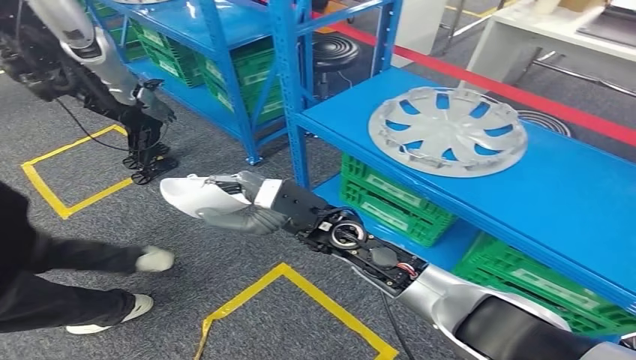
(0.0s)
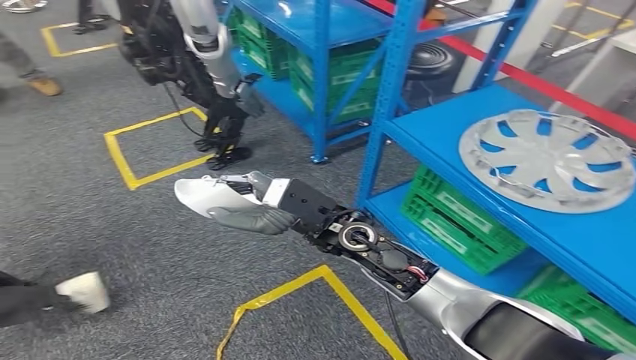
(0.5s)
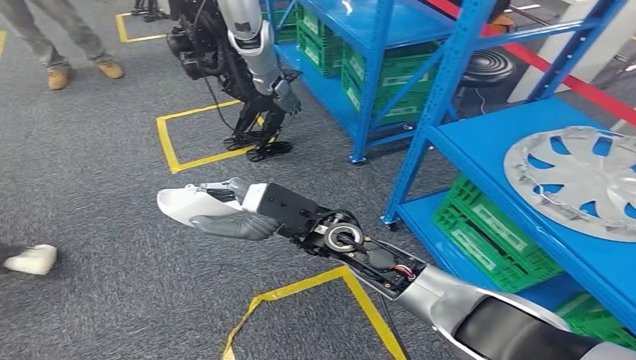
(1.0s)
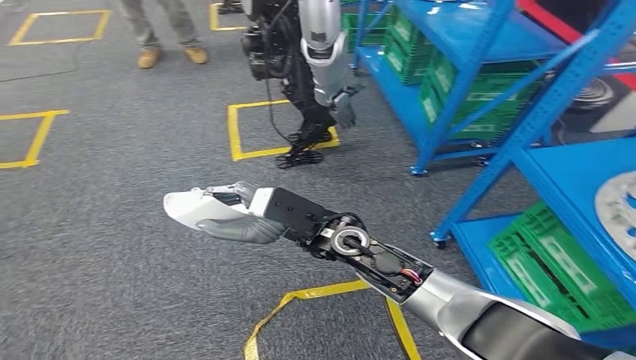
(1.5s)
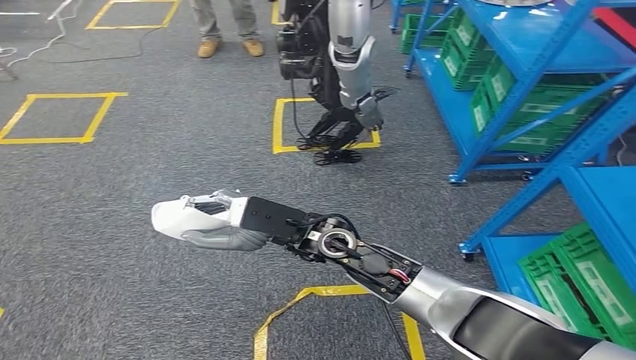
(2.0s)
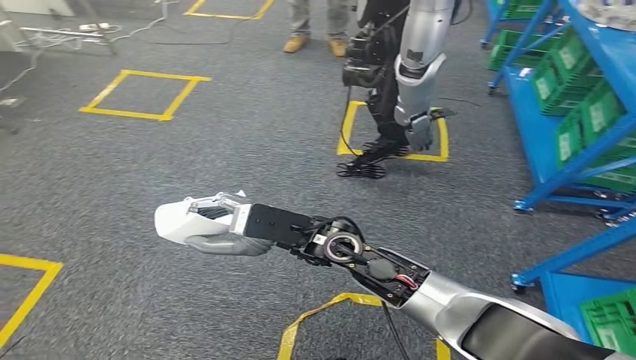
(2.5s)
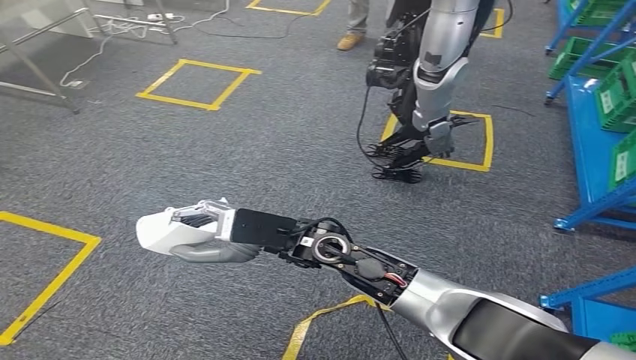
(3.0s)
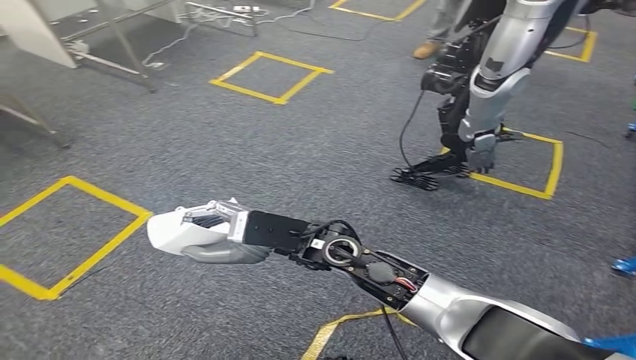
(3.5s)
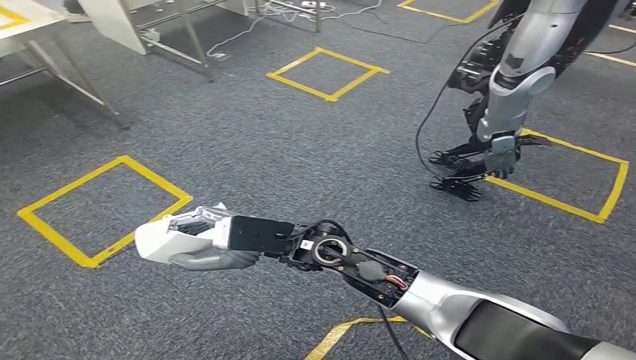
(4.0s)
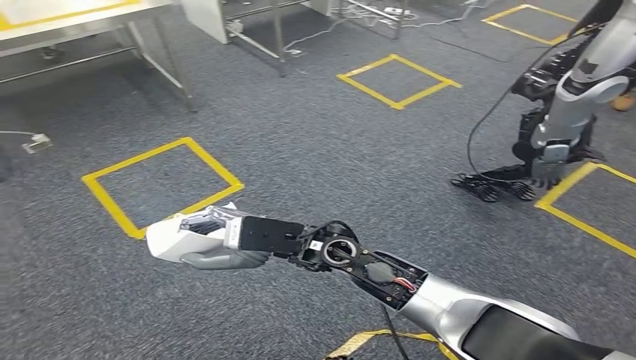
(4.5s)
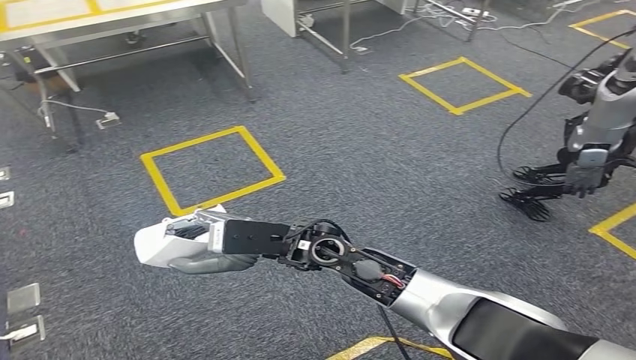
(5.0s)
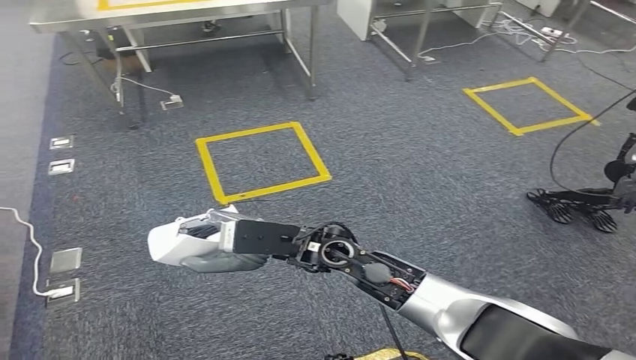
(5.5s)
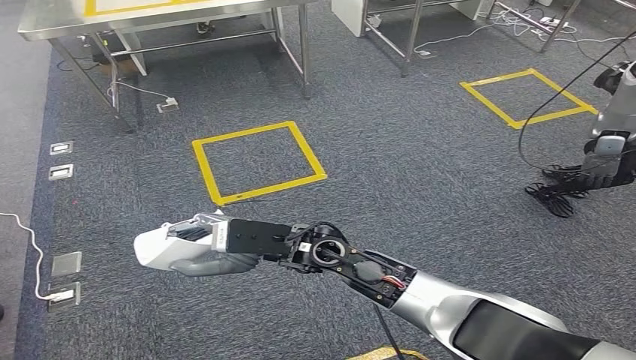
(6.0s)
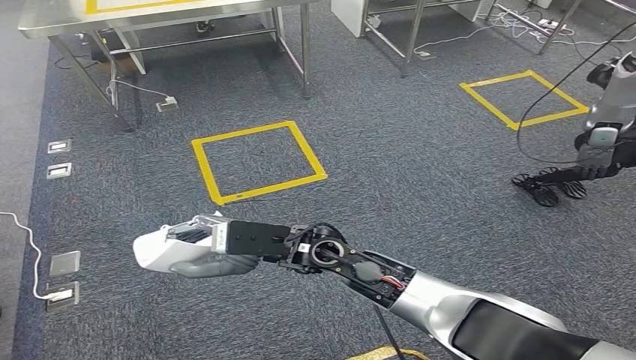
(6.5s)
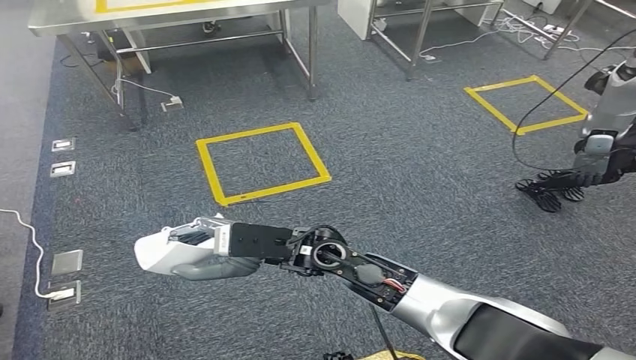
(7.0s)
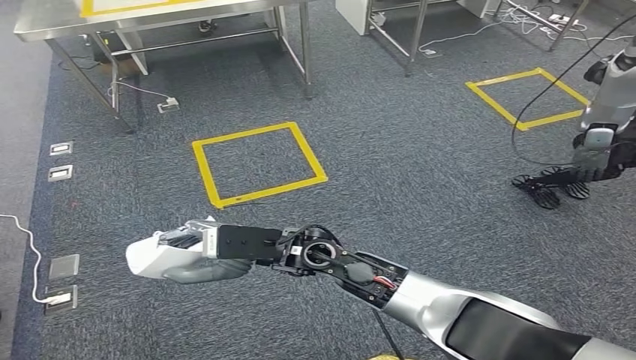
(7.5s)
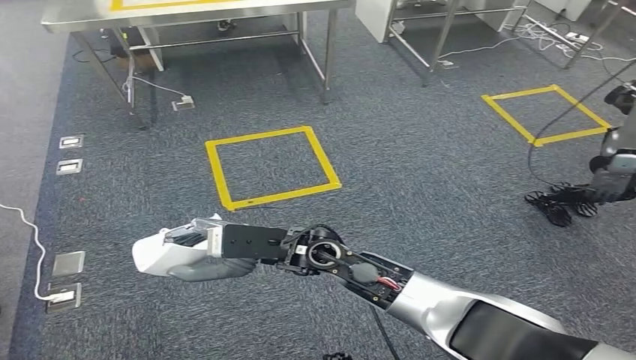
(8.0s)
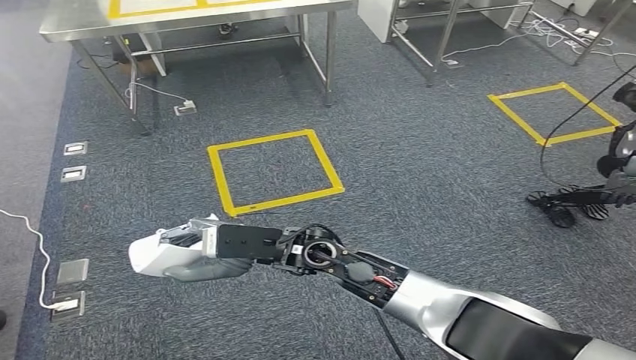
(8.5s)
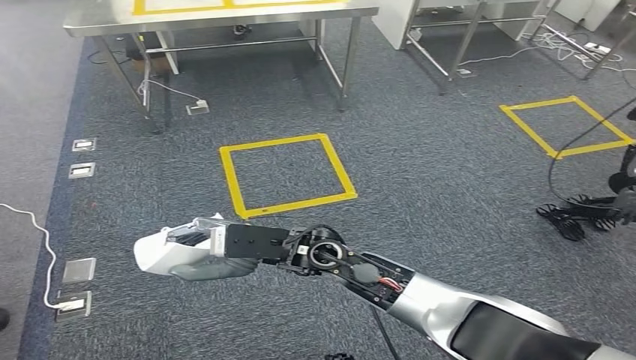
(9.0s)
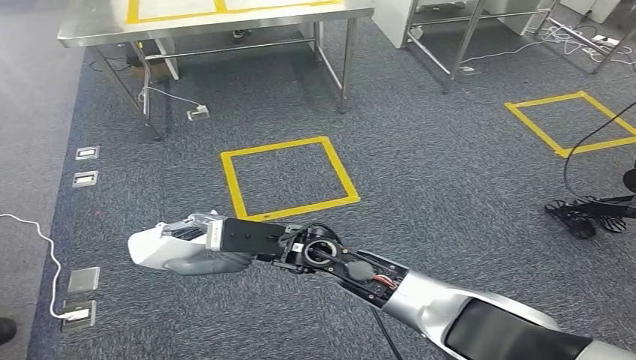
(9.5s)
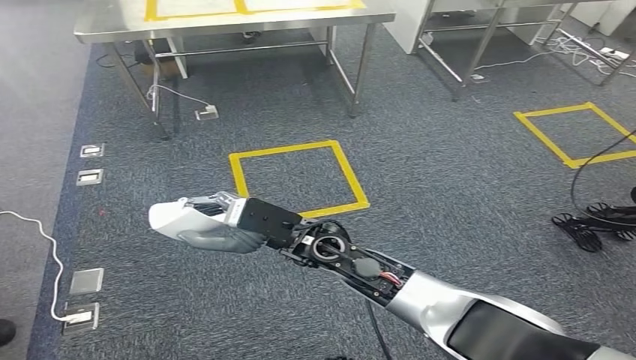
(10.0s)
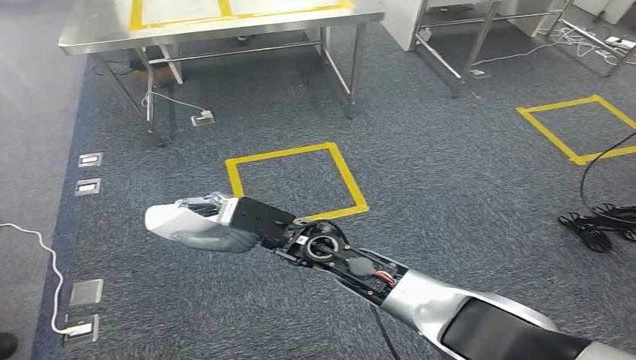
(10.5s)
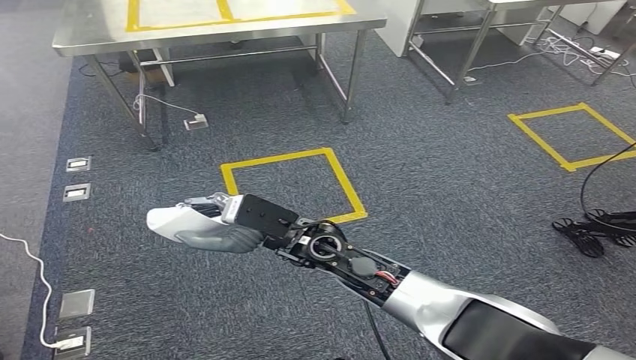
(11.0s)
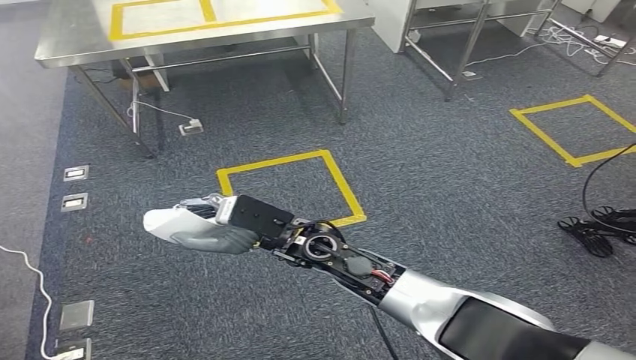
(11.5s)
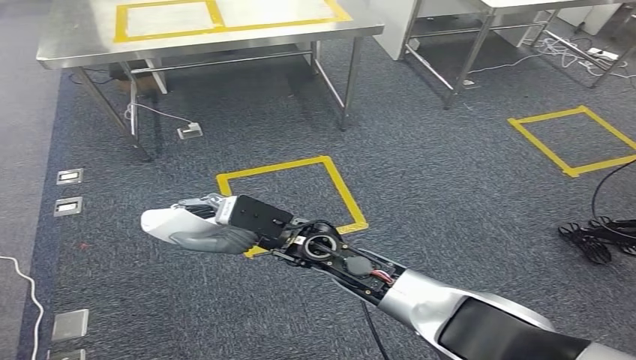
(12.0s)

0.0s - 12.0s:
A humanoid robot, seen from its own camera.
6.0s - 8.0s: Both hands stay put.

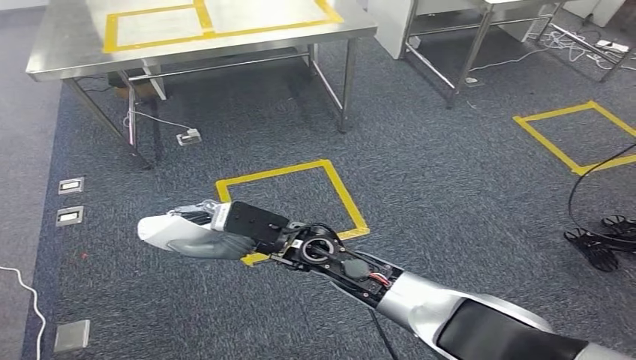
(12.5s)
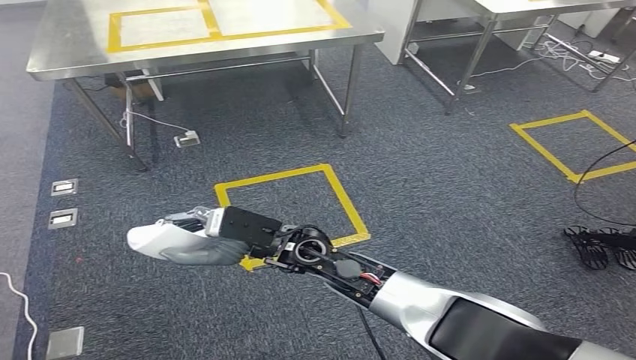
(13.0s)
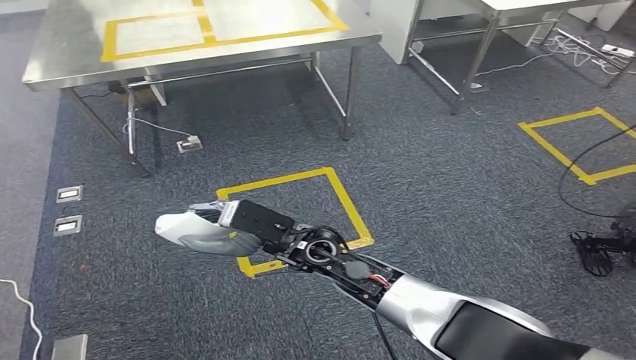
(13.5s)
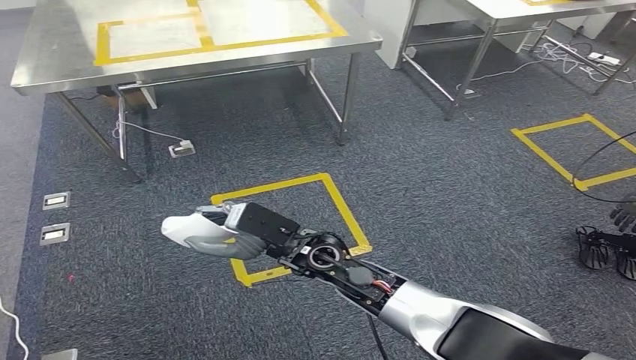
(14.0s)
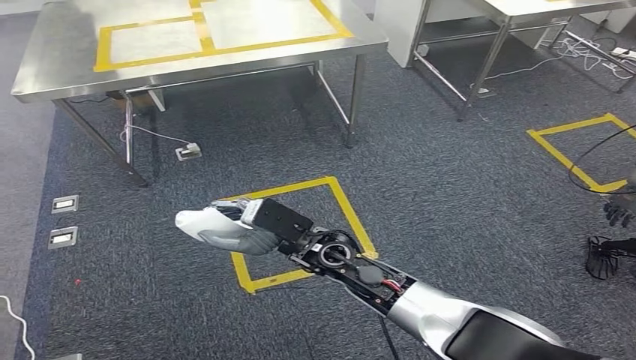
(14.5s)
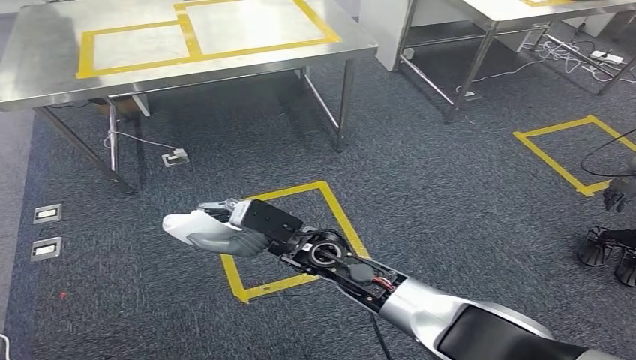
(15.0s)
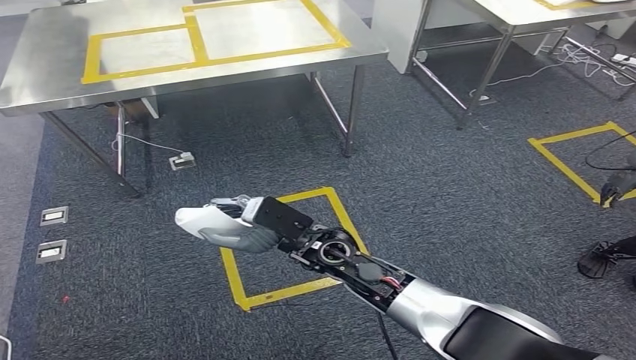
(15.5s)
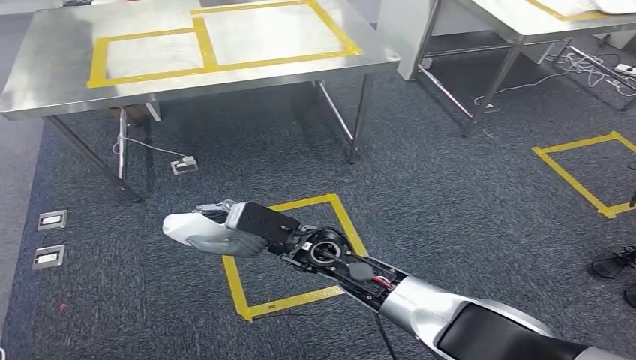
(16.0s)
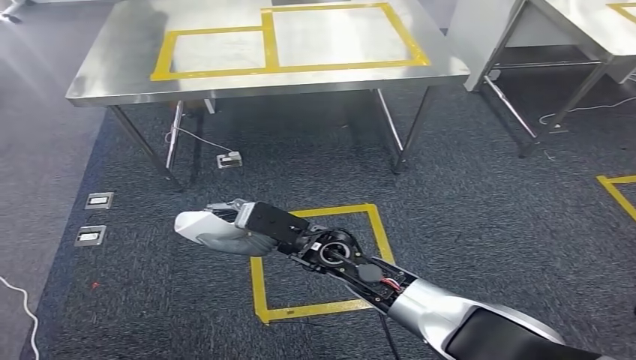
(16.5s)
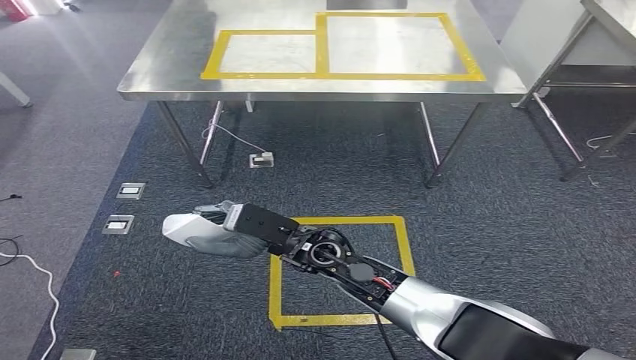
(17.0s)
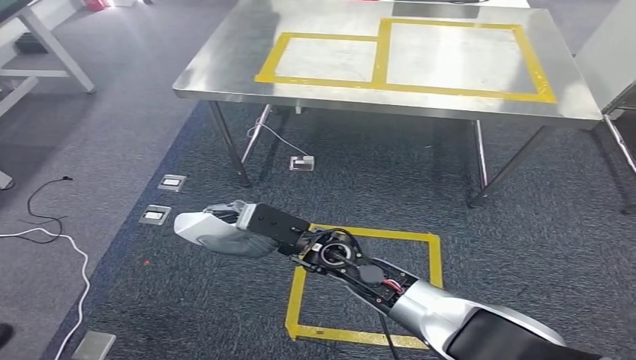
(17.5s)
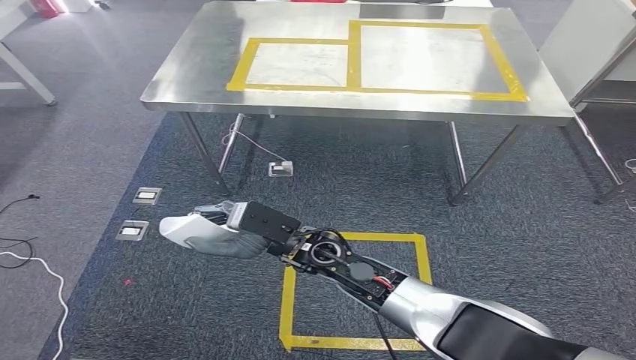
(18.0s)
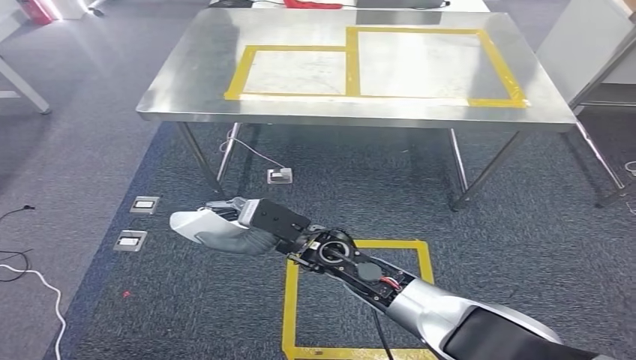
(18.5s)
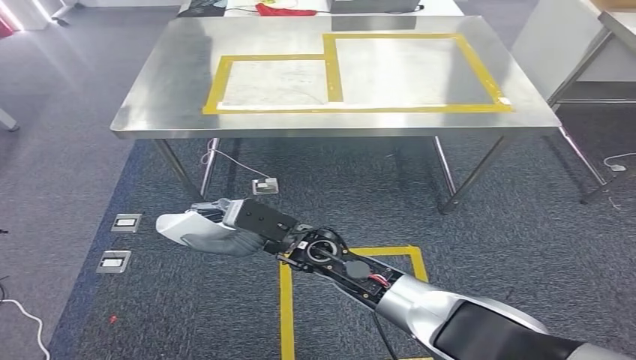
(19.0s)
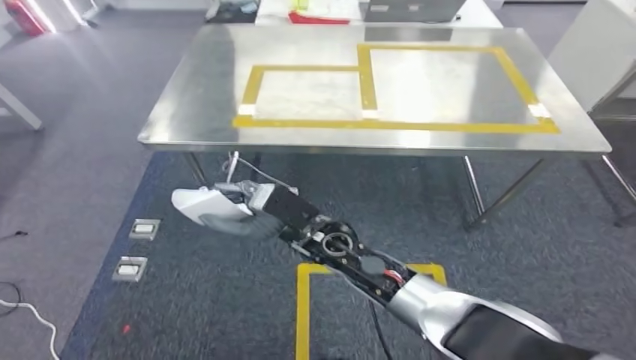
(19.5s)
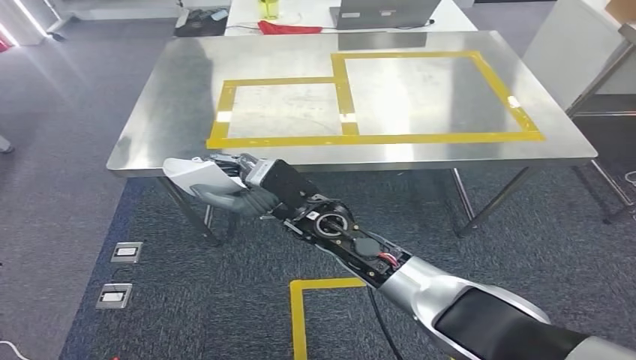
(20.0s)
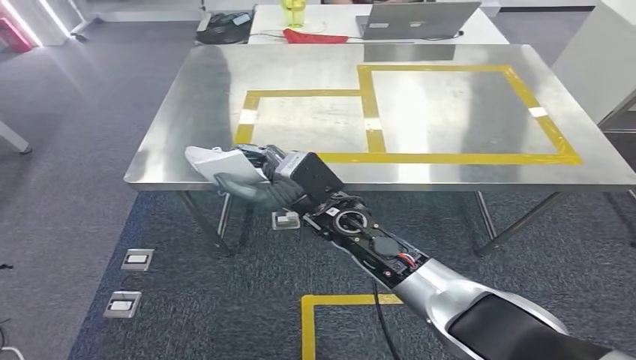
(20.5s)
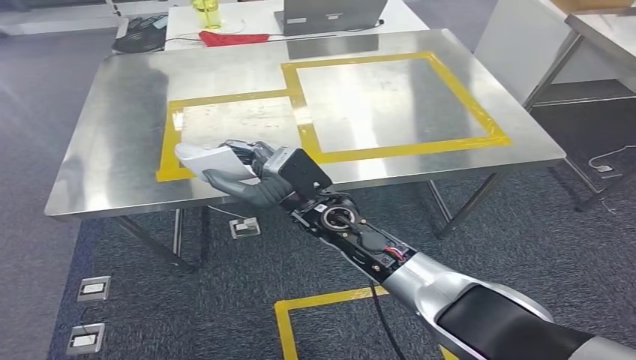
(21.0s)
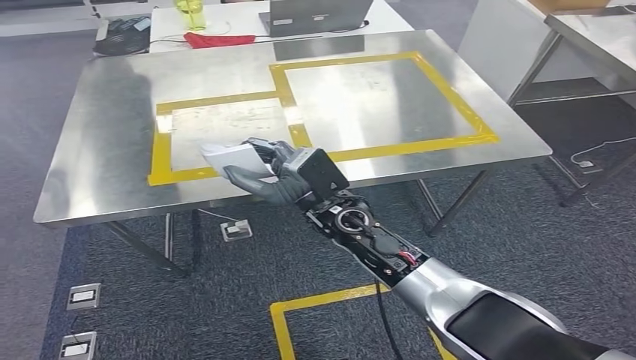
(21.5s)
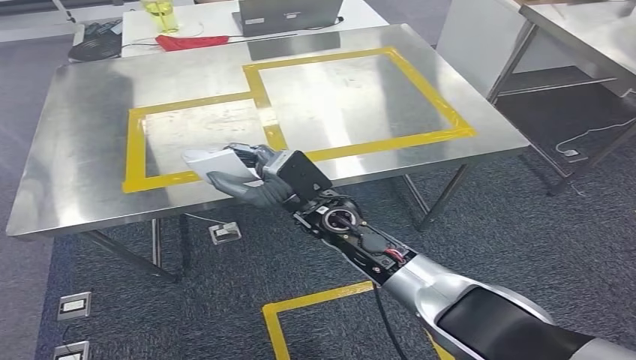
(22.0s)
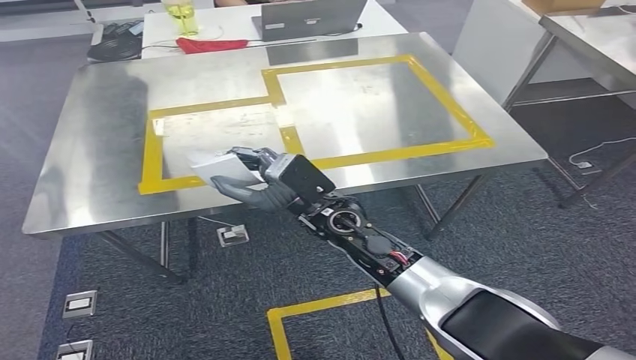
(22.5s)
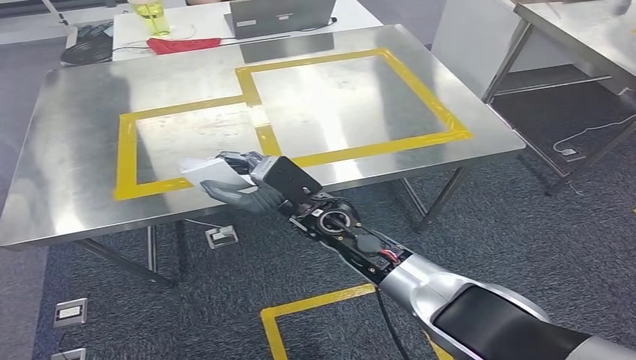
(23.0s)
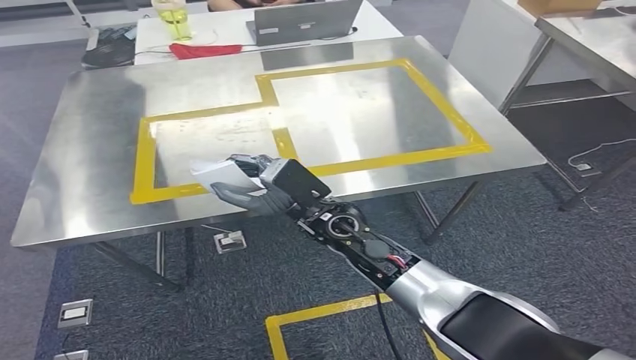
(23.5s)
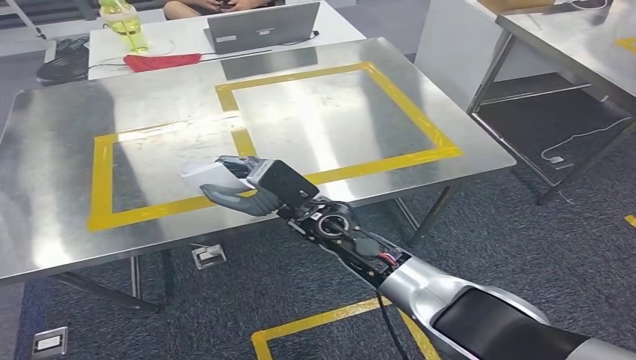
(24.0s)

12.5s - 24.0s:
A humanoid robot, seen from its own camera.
Step, 12.5s - 21.0s: Move the small parts to the workbench.
